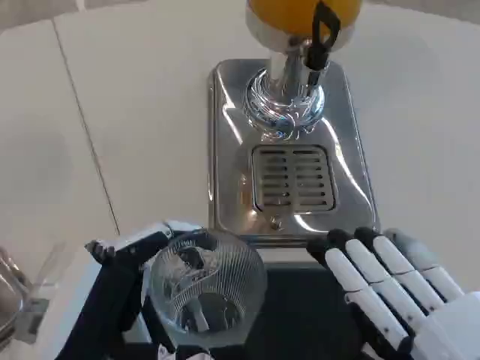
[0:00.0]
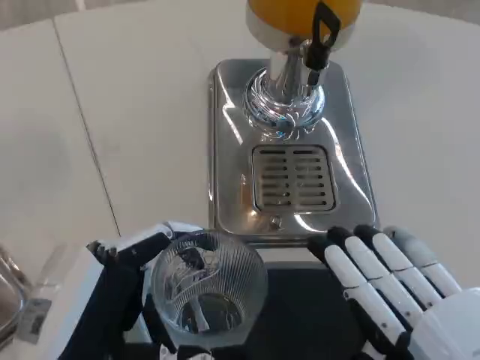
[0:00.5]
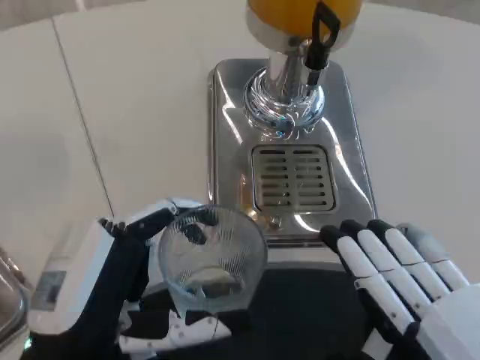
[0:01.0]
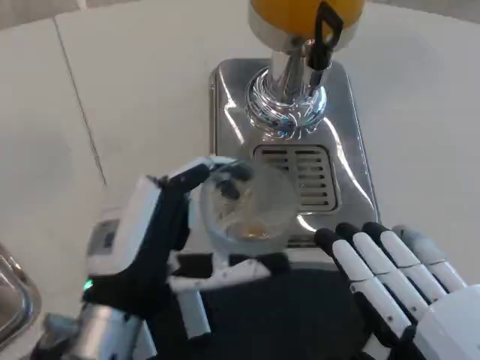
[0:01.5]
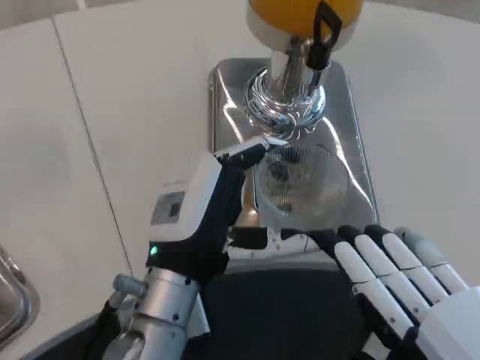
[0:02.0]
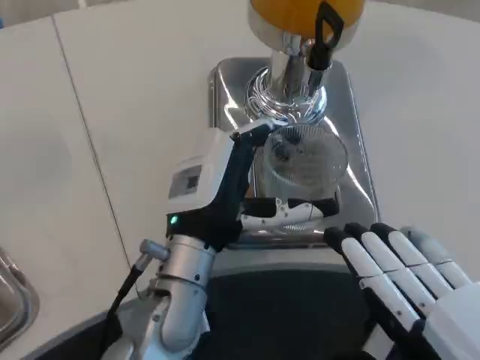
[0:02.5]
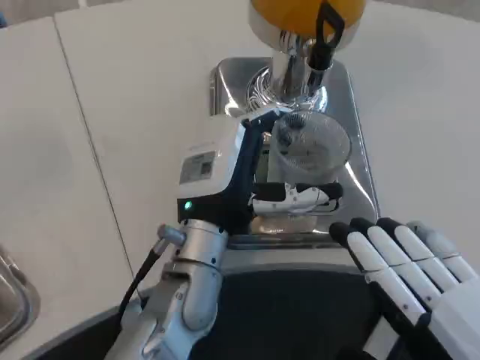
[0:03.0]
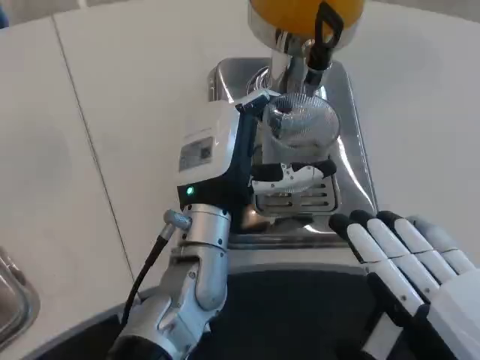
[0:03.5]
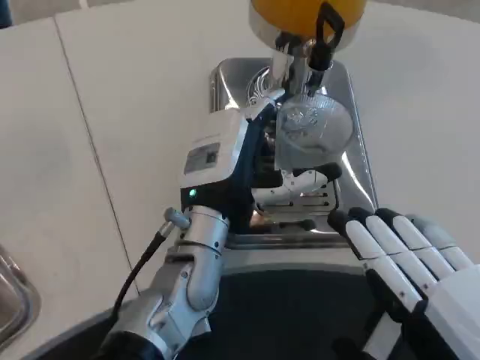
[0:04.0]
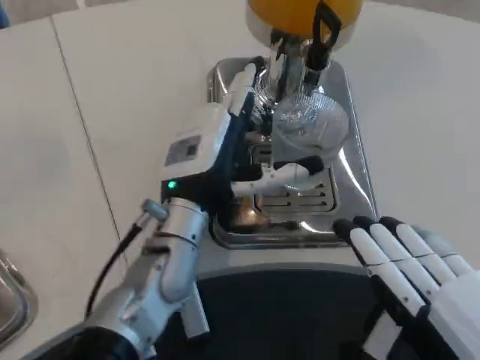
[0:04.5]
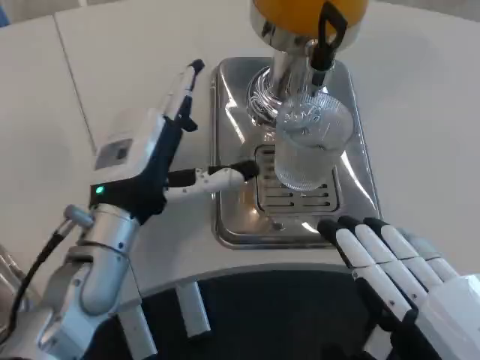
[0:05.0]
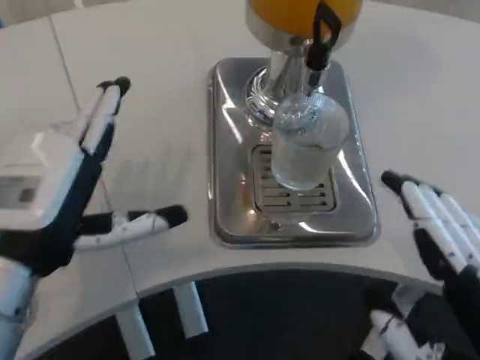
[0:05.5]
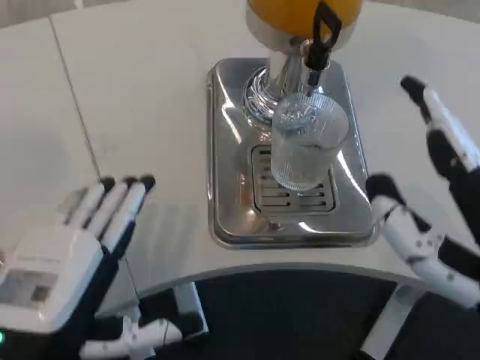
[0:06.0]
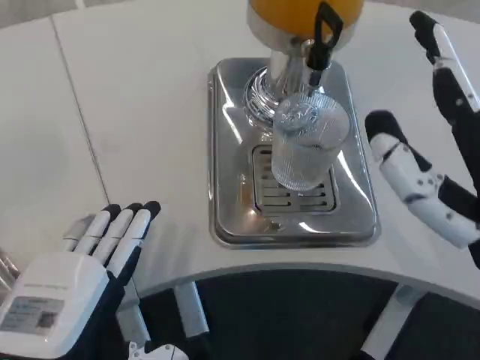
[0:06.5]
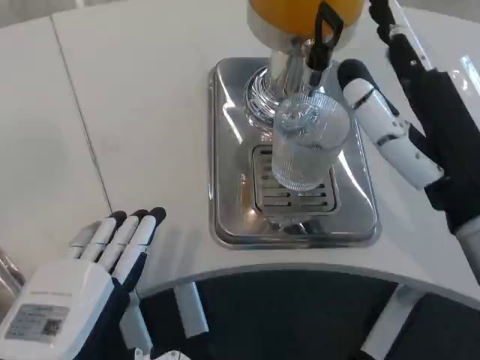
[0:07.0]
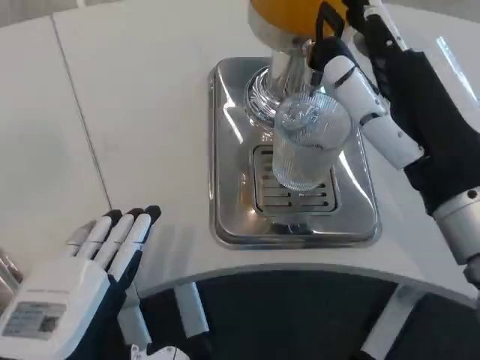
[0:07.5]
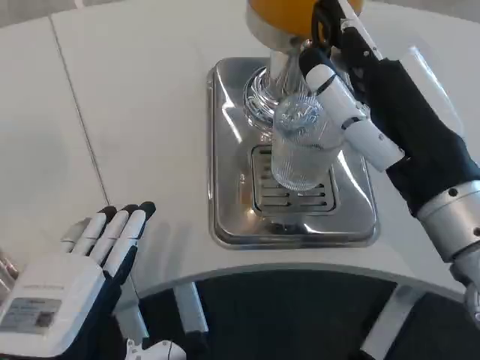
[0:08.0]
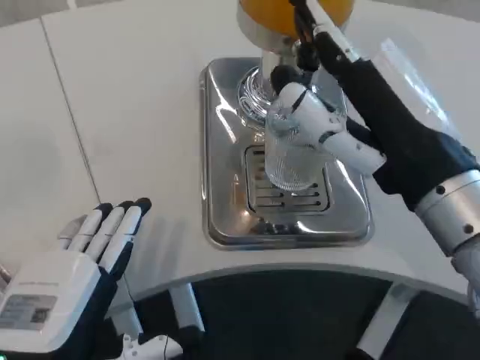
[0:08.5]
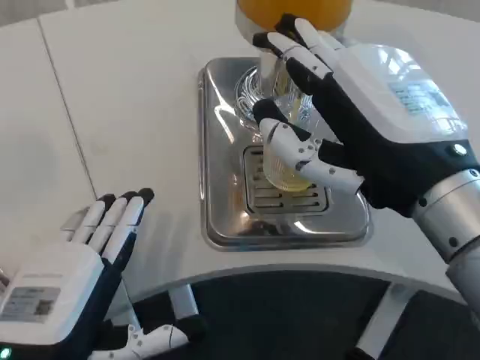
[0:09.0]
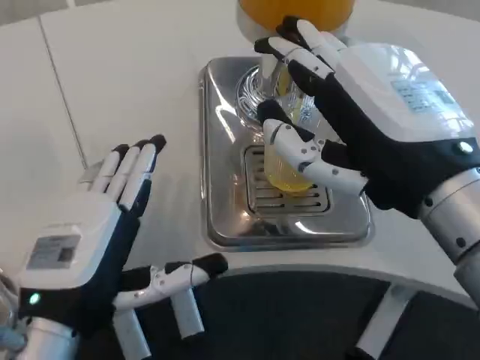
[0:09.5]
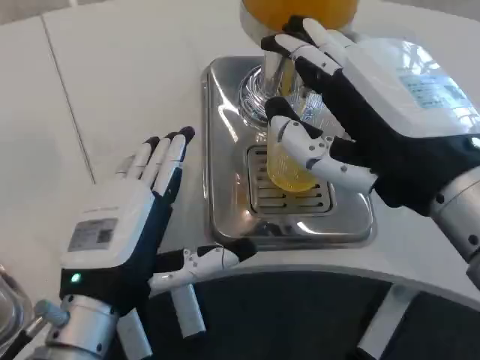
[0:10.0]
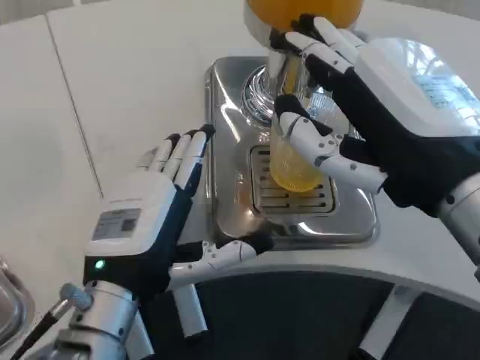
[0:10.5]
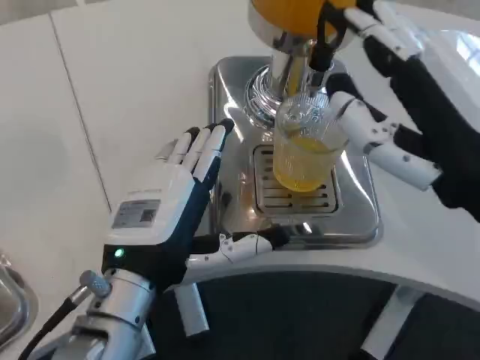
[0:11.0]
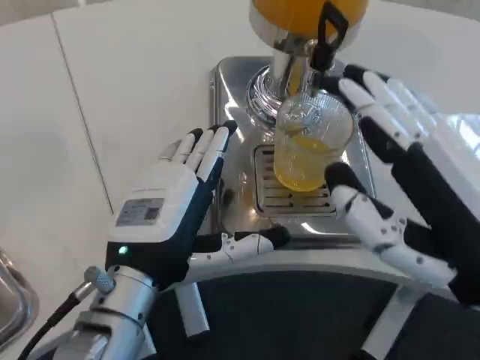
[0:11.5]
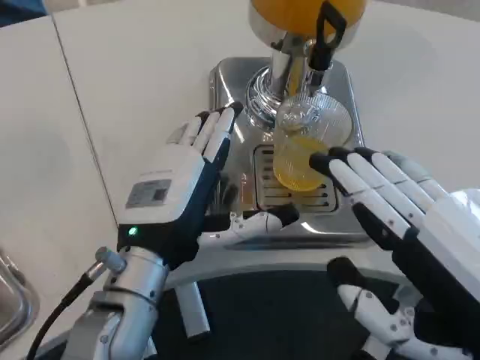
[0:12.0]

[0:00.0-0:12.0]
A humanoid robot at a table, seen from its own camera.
Task of the whole recording: Grasp the cup under the faucet to collect the drink, then remove the cup.
0:00.0 to 0:02.0: The left hand is displaced forward and to the right by some 15 cm.
0:02.0 to 0:04.0: The left hand shifts roughly 10 cm forward.
0:04.0 to 0:06.0: The right hand is displaced forward by about 5 cm. The left hand moves backward and to the left, about 20 cm.
0:06.0 to 0:08.0: The right hand travels forward by approximately 10 cm.
0:08.0 to 0:10.0: The right hand moves about 5 cm. The left hand is displaced forward by approximately 5 cm.
0:10.0 to 0:12.0: The left hand changes place by roughly 5 cm. Meanwhile the right hand shifts some 10 cm backward, downward and to the right.

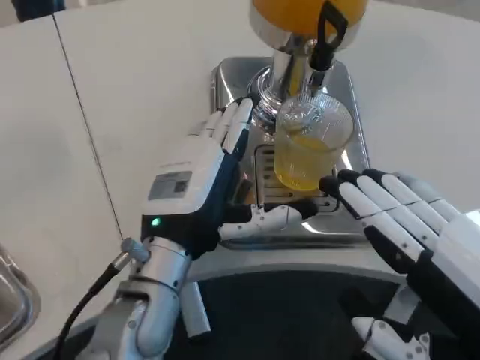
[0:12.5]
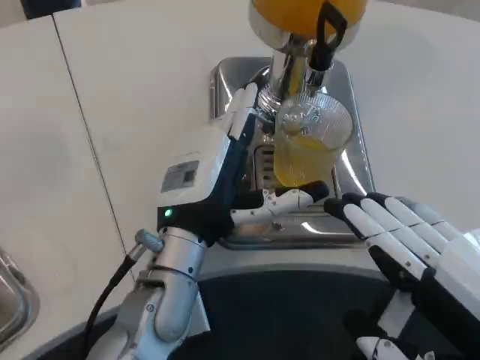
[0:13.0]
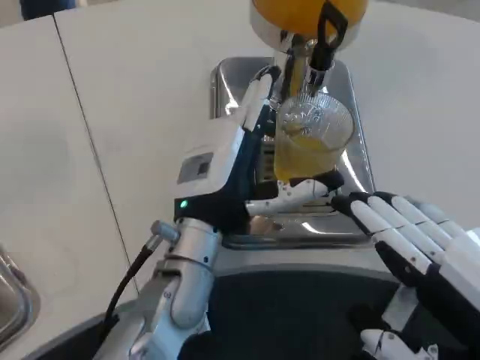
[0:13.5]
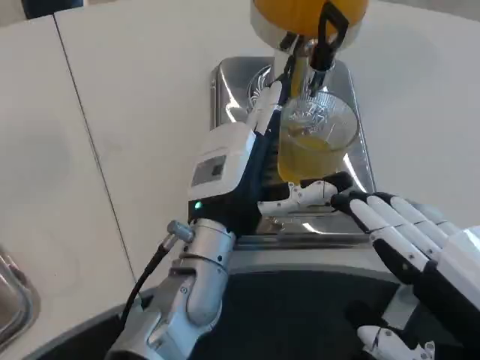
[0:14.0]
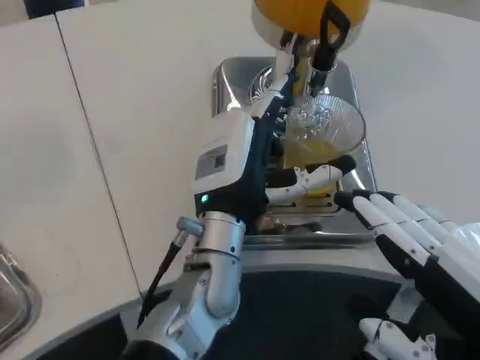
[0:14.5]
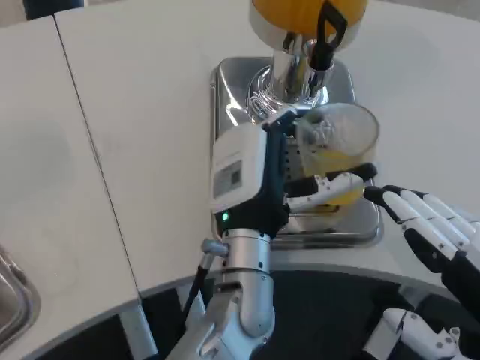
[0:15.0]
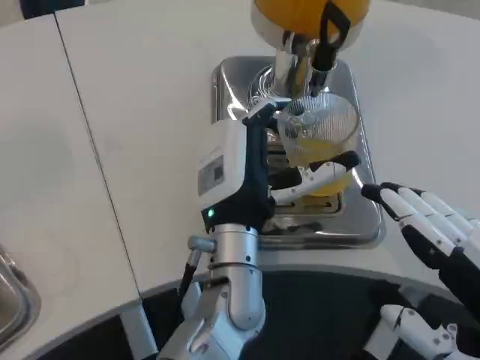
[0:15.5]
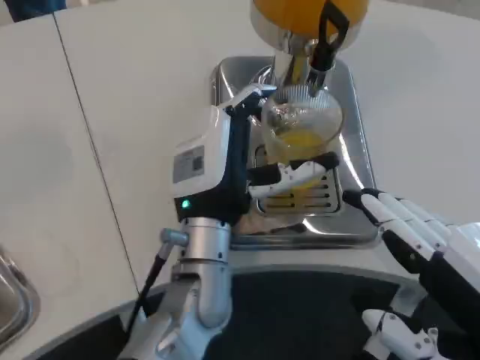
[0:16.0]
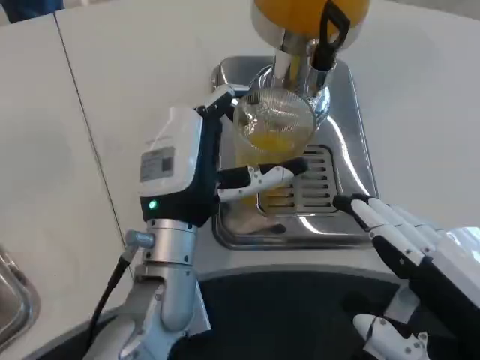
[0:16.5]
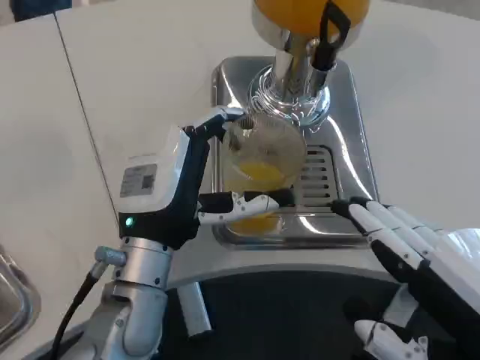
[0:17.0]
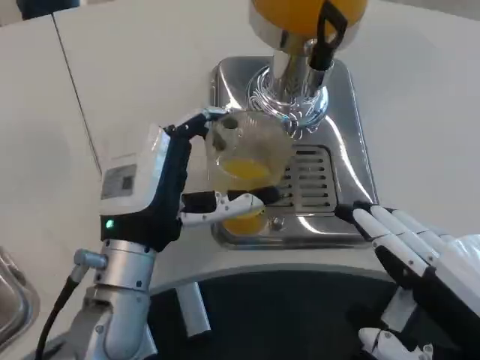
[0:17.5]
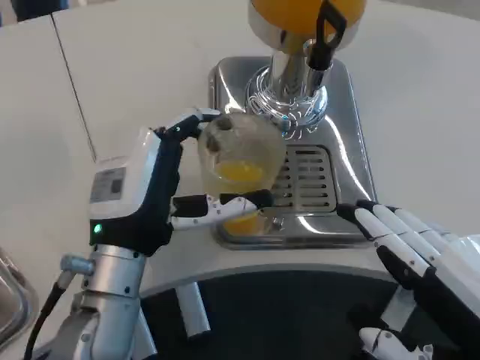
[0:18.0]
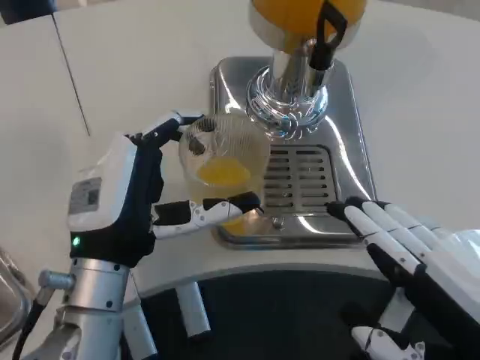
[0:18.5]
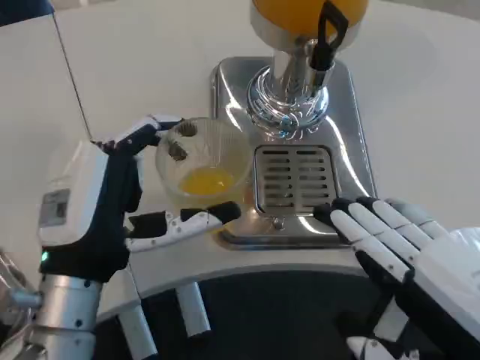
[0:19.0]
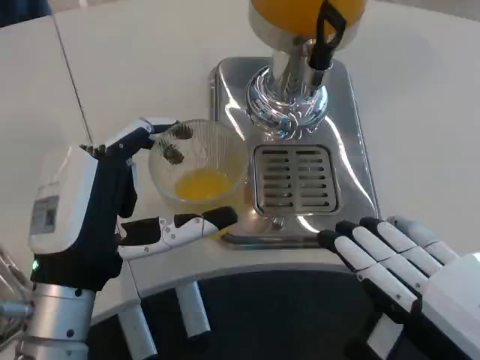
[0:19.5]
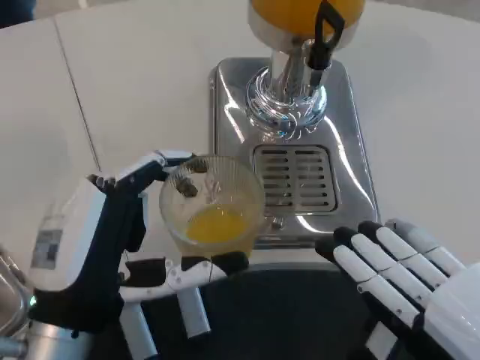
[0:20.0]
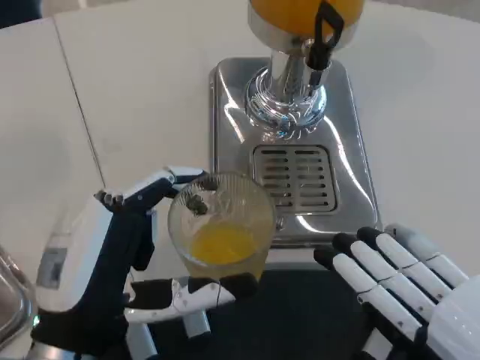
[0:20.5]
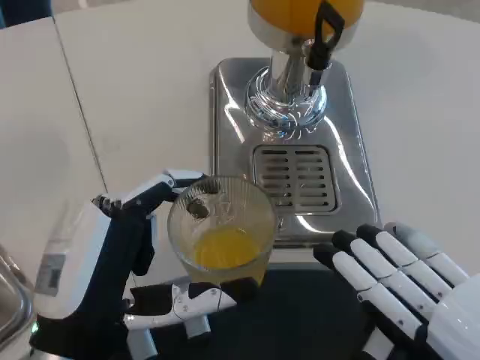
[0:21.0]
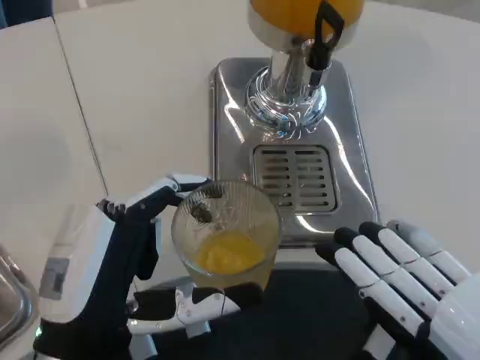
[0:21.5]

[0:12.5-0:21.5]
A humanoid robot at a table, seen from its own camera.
Task of the whole recording: Grasp the cup under the faucet to collect the drink, then remove the cup.
0:12.5 to 0:14.5: The left hand is displaced to the right by approximately 5 cm.
0:14.5 to 0:17.0: The left hand goes approximately 10 cm to the left.
0:17.0 to 0:19.5: The left hand is displaced backward by approximately 5 cm.
0:19.5 to 0:21.5: The left hand moves backward, about 5 cm.

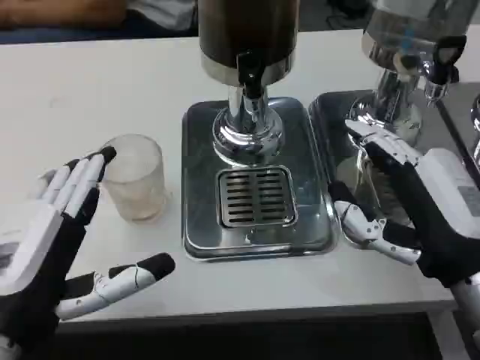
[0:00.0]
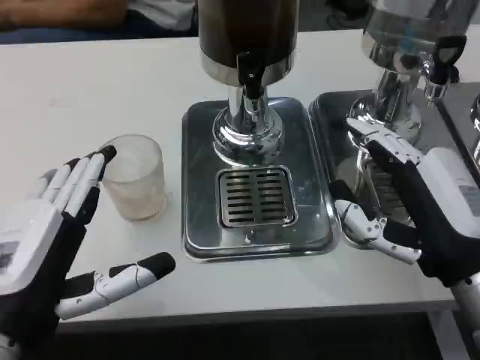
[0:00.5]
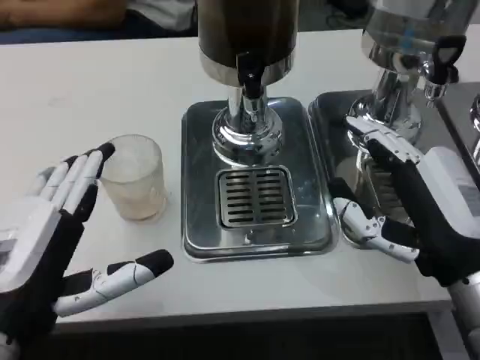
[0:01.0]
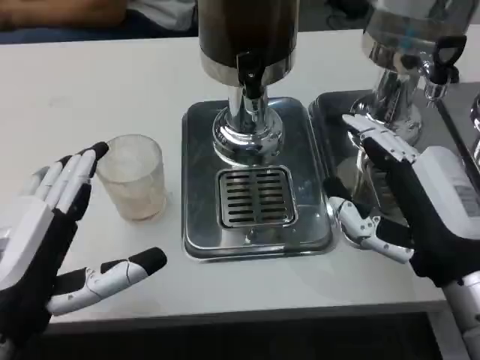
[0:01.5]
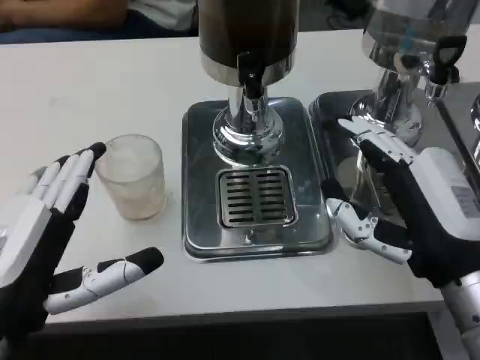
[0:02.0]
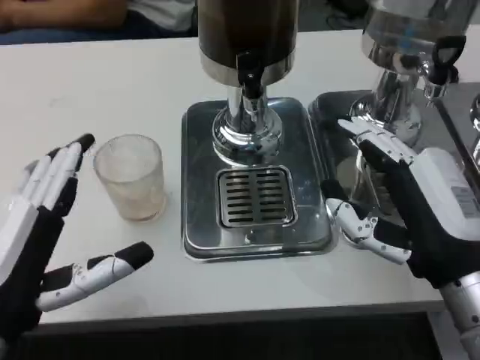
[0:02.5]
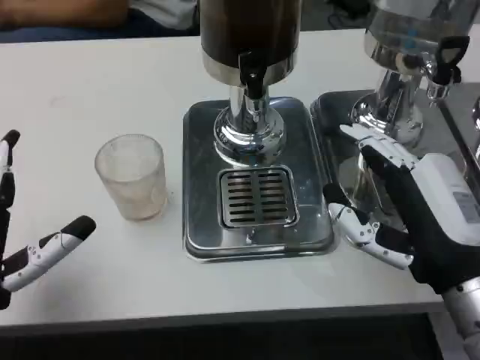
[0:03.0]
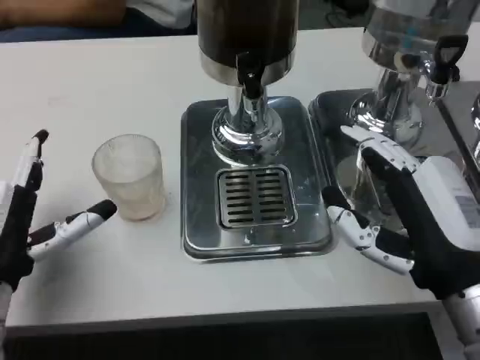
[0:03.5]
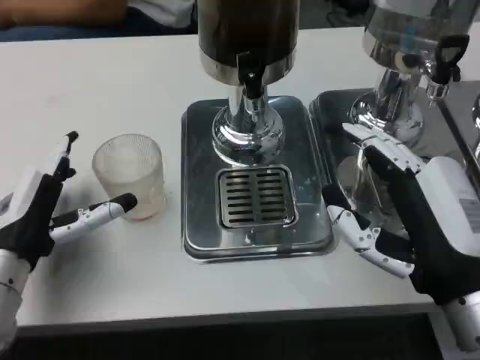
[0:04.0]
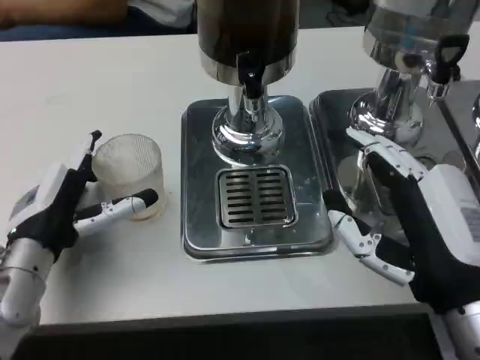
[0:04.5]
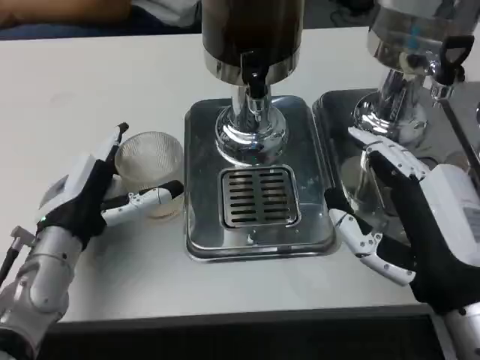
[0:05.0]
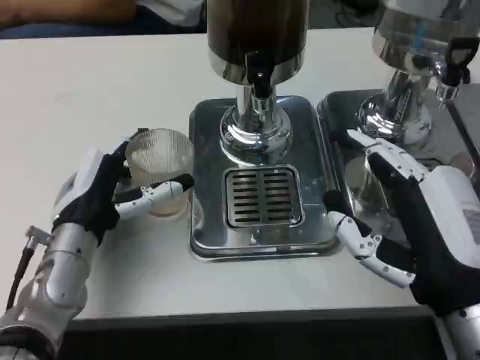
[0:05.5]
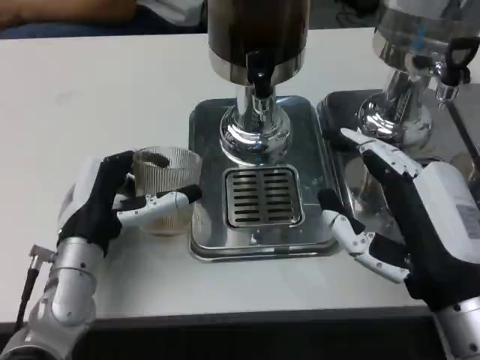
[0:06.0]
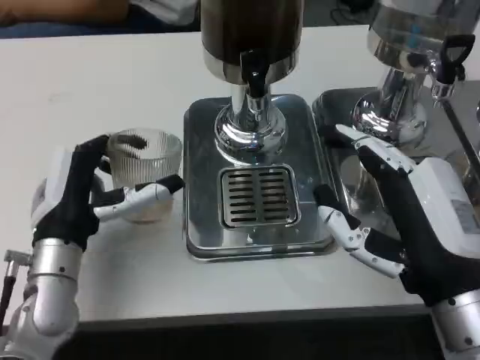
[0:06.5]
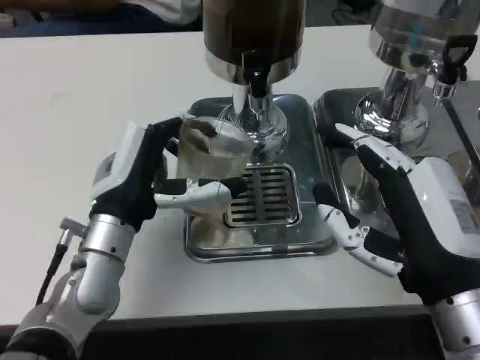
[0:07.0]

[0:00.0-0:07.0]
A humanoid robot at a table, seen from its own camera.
Task of the whole recording: Grasp the cup under the faucet to collect the drink, then remove the cup.
0:00.0 to 0:02.0: The two hands keep their place.
0:02.0 to 0:03.5: The left hand heads forward and downward, covering about 10 cm.
0:03.5 to 0:05.0: The left hand travels forward and to the right by approximately 10 cm.
0:05.0 to 0:07.0: The left hand travels to the right by roughly 5 cm.
